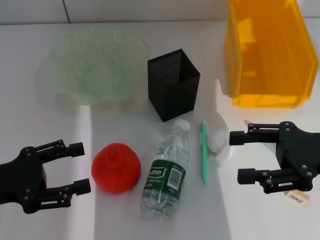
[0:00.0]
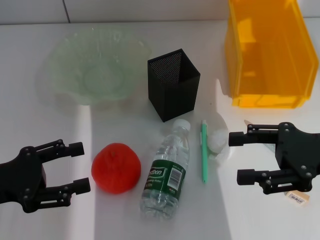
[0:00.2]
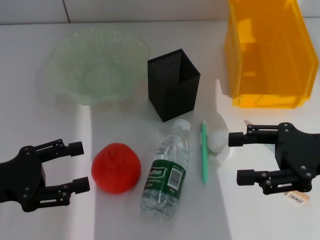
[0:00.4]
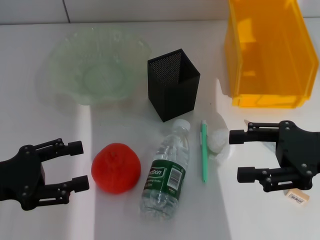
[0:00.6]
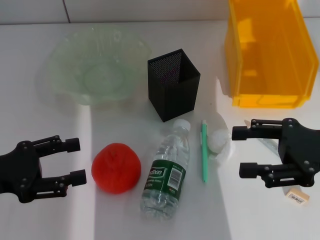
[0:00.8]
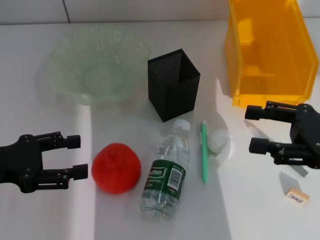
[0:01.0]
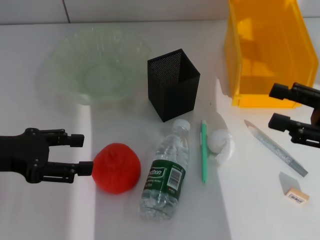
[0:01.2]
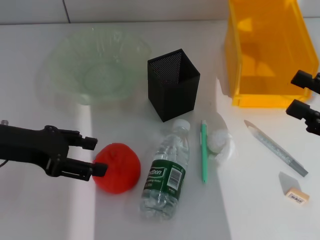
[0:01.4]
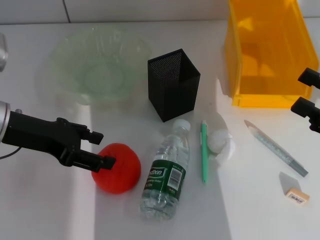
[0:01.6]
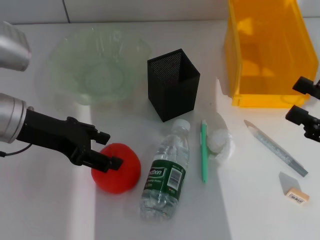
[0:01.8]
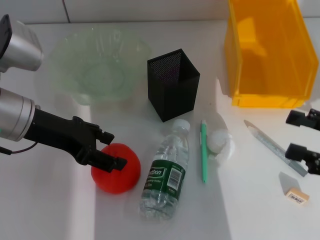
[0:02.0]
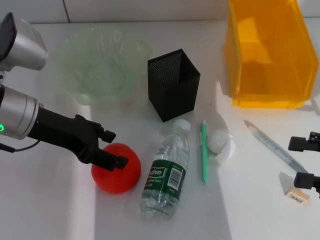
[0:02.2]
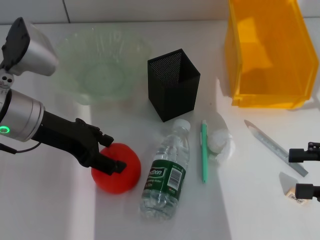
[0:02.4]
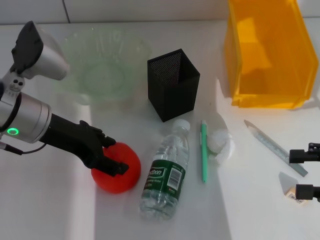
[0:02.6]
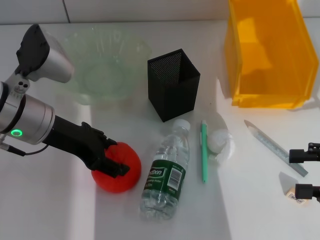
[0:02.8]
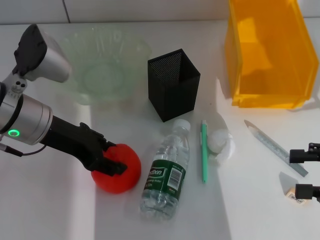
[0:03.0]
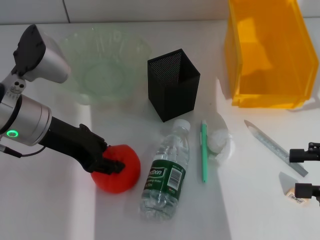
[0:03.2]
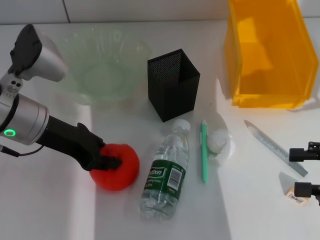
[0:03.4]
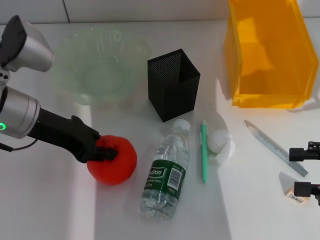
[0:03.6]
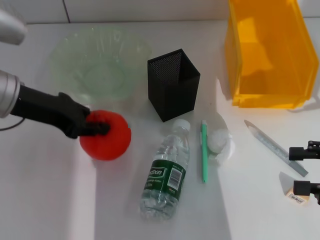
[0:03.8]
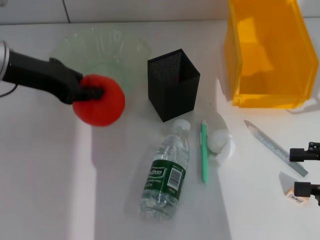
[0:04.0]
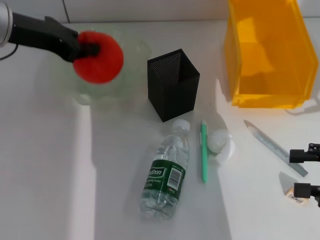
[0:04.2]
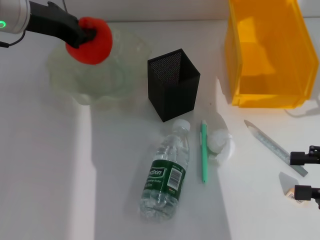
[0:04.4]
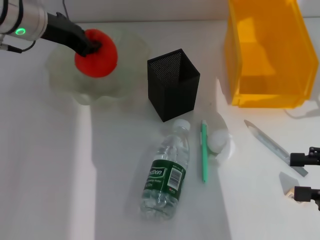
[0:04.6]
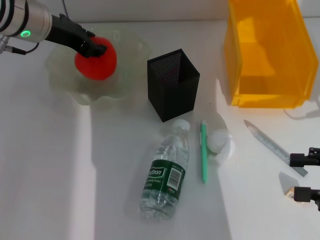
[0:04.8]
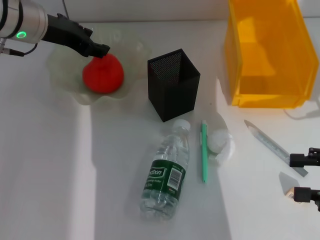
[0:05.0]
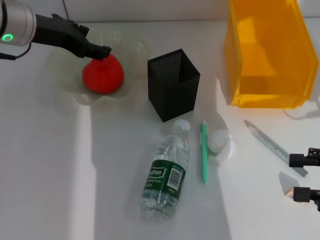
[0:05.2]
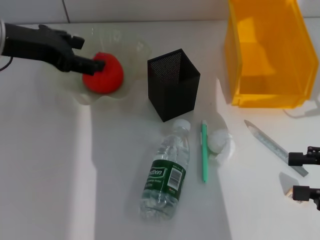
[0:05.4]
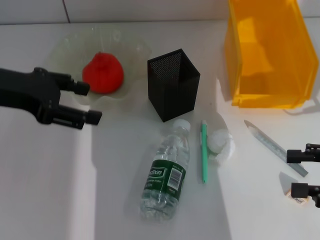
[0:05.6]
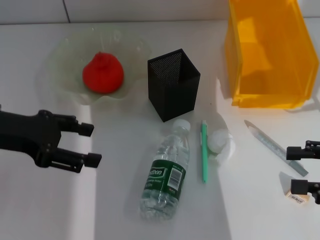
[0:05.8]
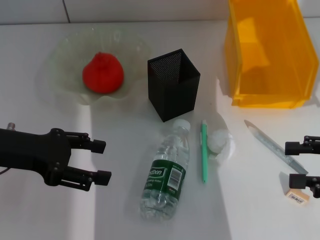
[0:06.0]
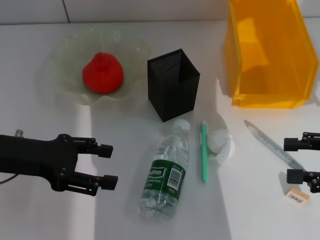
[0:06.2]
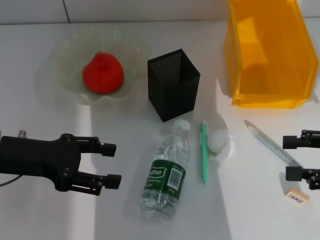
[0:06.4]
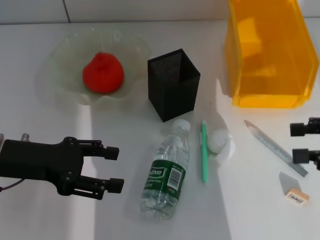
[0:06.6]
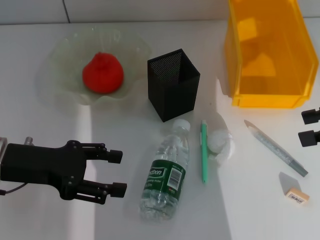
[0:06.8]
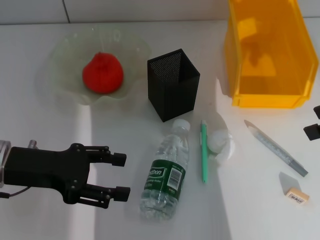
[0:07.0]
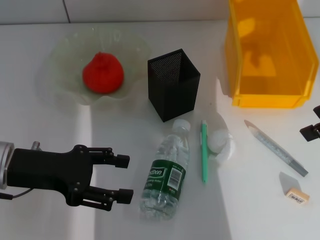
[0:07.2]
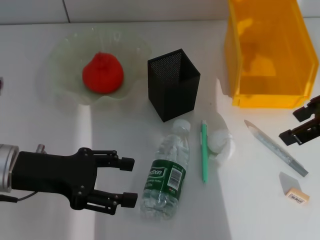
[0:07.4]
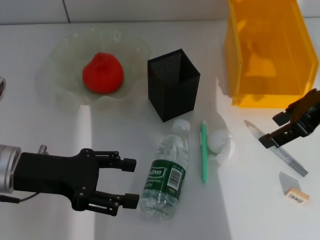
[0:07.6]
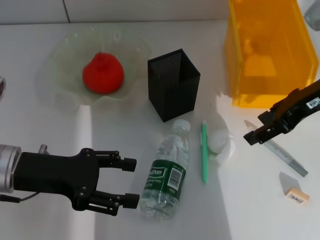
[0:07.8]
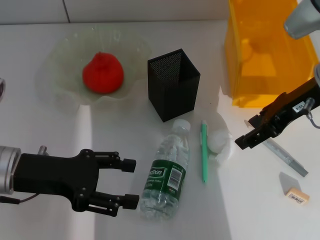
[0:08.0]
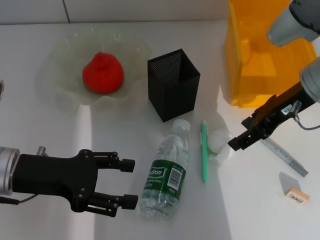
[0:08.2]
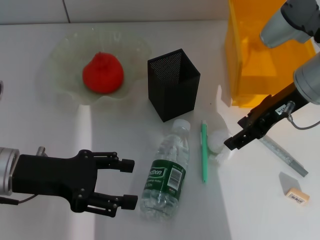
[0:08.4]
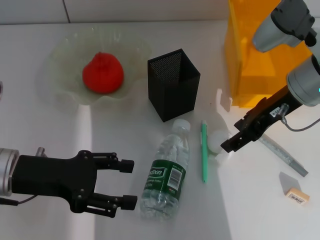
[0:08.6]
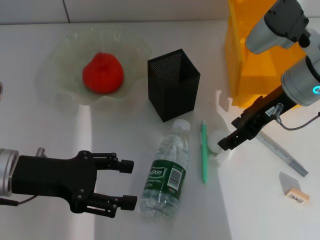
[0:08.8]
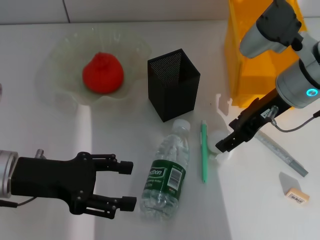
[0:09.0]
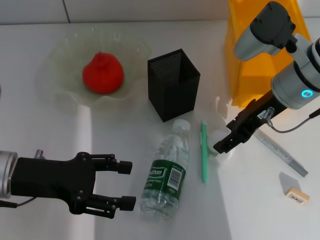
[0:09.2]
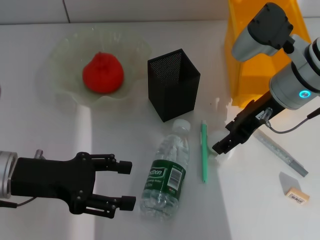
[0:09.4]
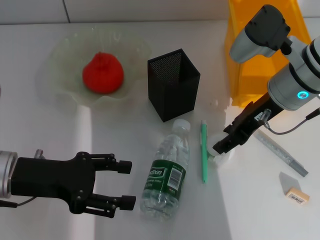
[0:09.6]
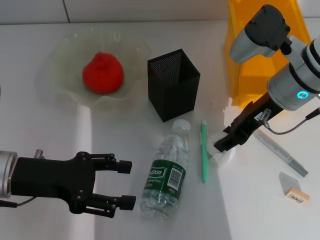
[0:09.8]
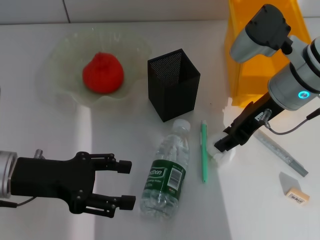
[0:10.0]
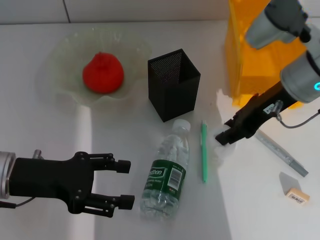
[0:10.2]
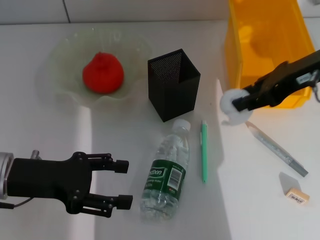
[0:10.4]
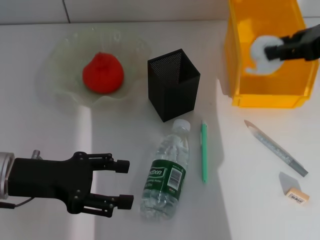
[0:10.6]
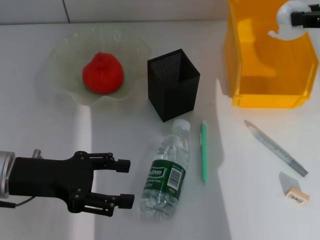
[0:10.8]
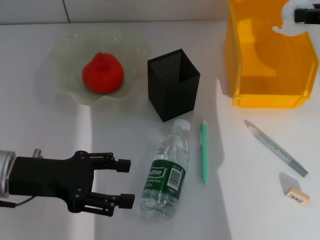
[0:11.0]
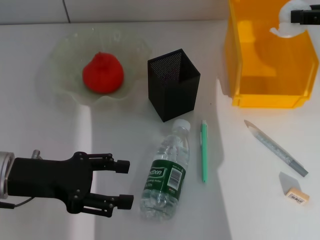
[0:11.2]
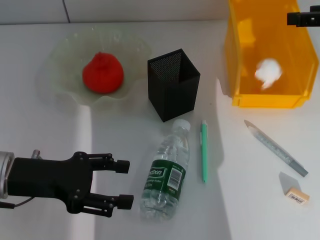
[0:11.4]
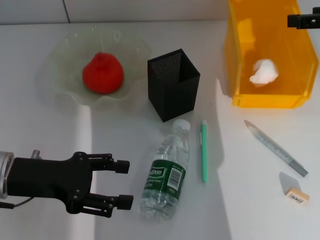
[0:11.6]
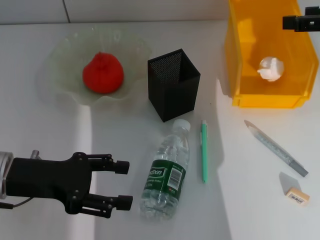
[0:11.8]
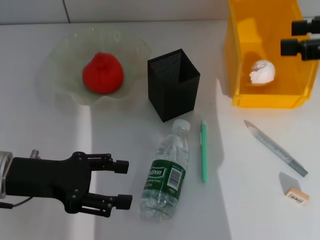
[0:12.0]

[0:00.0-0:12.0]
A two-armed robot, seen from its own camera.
Step, 0:00.0 to 0:03.2: Grab the orange with the left hand.
Step, 0:03.6 to 0:05.0: Place the orange into the fruit bowl with the left hand.
Step, 0:05.2 to 0:09.8: Grab the paper ball with the right hand.
Step, 0:10.2 to 0:11.6: Place the paper ball into the trash can with the right hand.
0:00.0 to 0:01.6: The right gripper moves to the right, about 5 cm; the left gripper shifts some 15 cm forward, upward and to the right.
0:01.6 to 0:03.0: The left gripper shifts by some 5 cm.
0:03.0 to 0:04.4: The left gripper heads forward and upward, covering about 10 cm, and closes.
0:04.4 to 0:06.0: The left gripper travels backward and downward by roughly 15 cm, and opens its fingers.
0:06.0 to 0:07.6: The right gripper travels to the left, forward and upward by about 15 cm.
0:07.6 to 0:09.0: The right gripper moves to the left and downward, about 10 cm.
0:09.0 to 0:10.4: The right gripper moves upward and to the right, roughly 10 cm, and closes its fingers.
0:10.4 to 0:12.0: The right gripper heads to the right, covering some 10 cm, and opens.

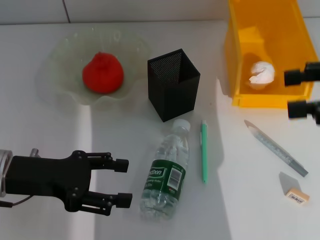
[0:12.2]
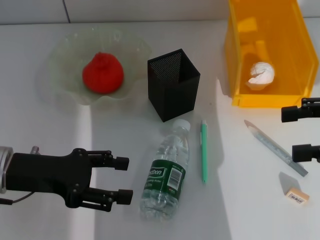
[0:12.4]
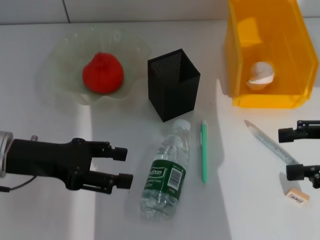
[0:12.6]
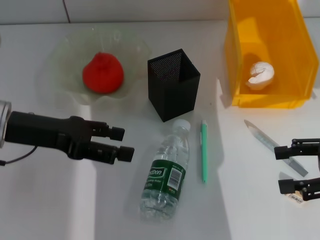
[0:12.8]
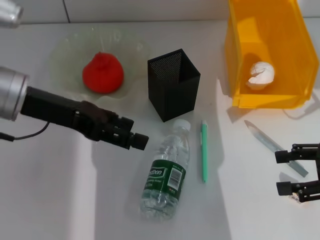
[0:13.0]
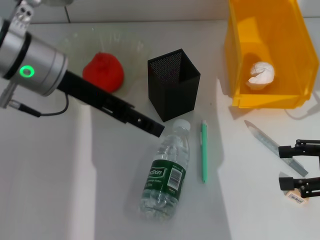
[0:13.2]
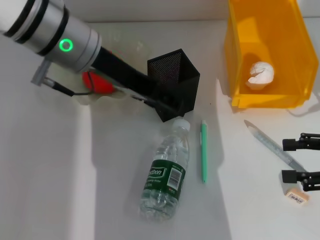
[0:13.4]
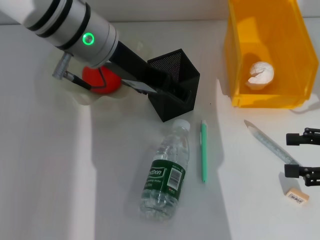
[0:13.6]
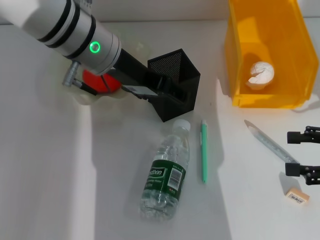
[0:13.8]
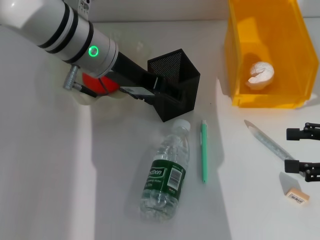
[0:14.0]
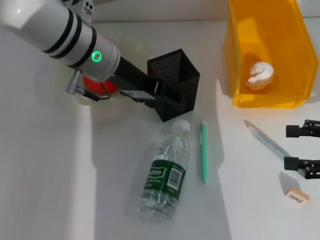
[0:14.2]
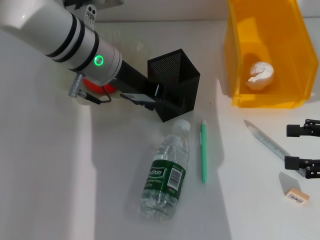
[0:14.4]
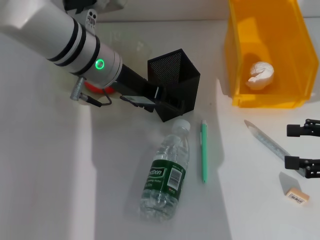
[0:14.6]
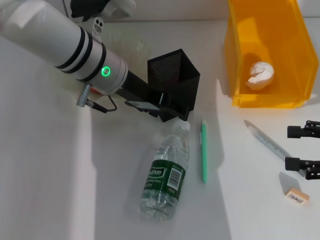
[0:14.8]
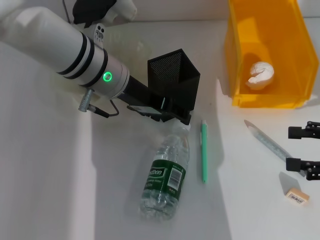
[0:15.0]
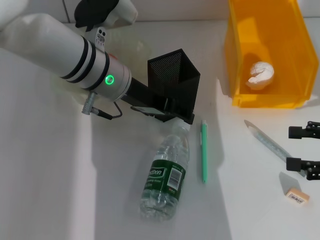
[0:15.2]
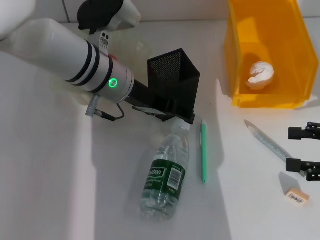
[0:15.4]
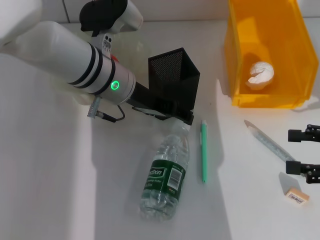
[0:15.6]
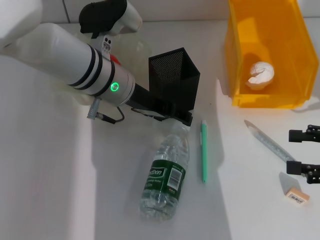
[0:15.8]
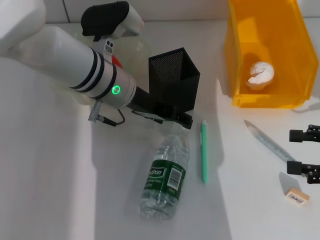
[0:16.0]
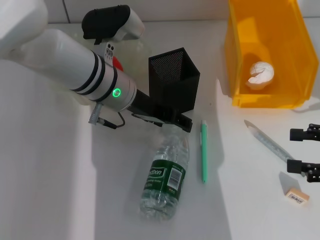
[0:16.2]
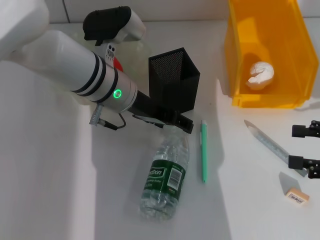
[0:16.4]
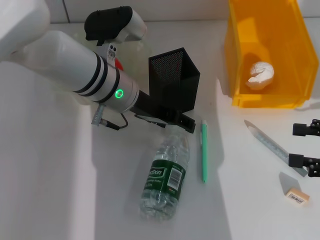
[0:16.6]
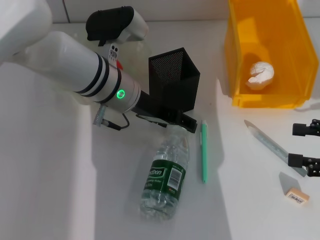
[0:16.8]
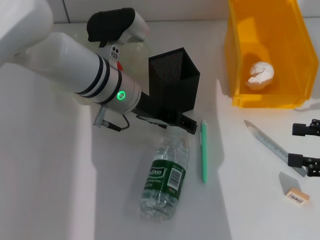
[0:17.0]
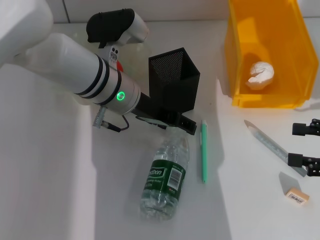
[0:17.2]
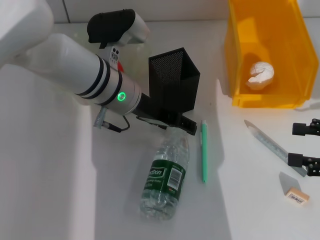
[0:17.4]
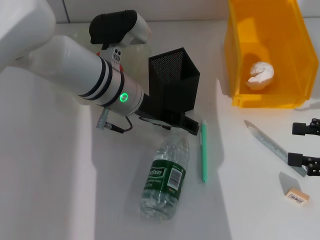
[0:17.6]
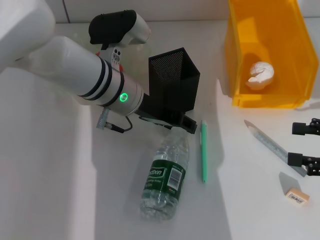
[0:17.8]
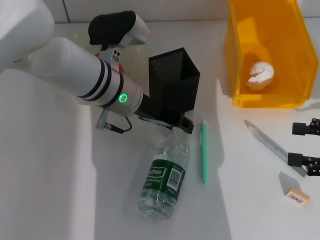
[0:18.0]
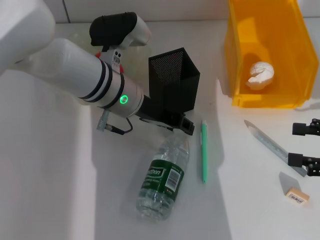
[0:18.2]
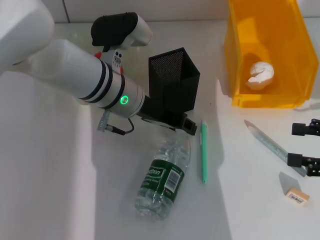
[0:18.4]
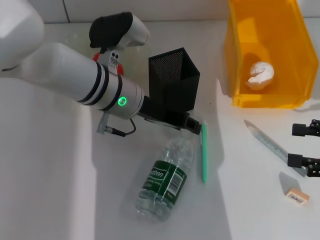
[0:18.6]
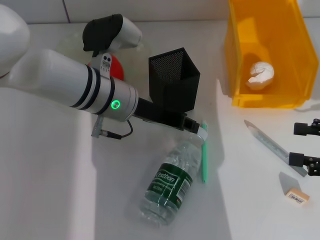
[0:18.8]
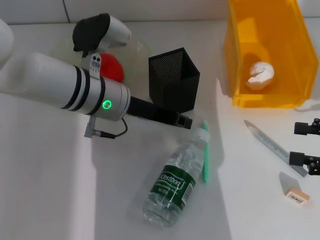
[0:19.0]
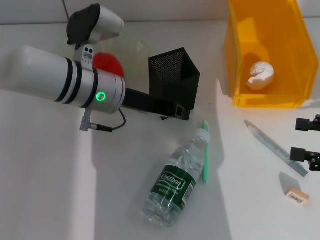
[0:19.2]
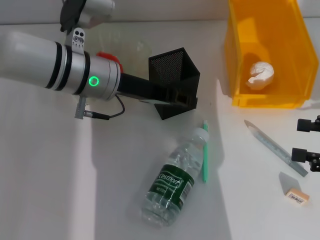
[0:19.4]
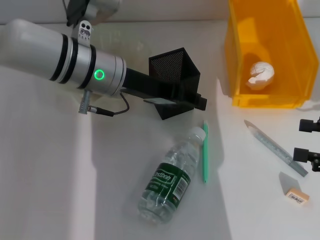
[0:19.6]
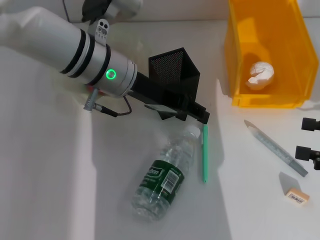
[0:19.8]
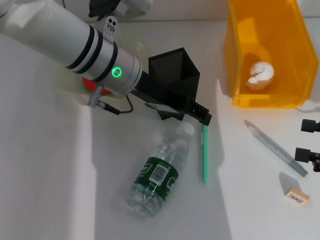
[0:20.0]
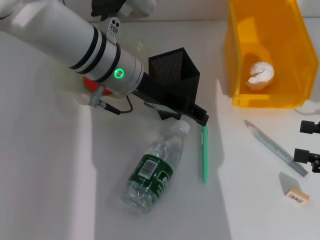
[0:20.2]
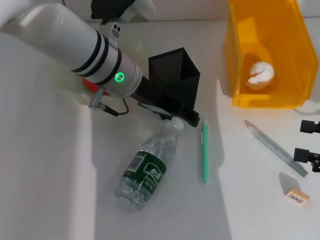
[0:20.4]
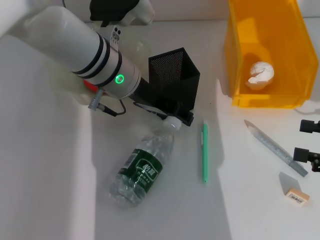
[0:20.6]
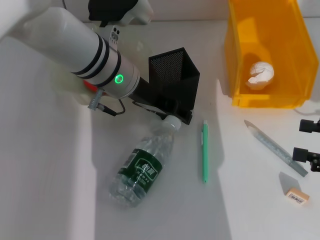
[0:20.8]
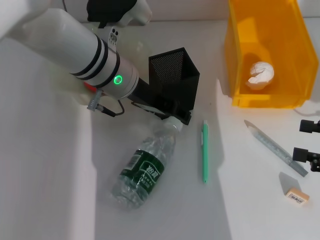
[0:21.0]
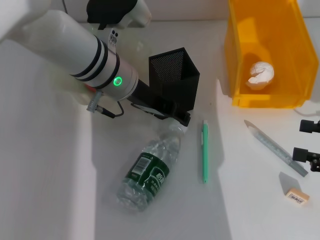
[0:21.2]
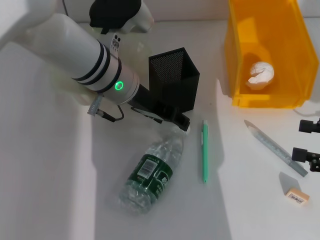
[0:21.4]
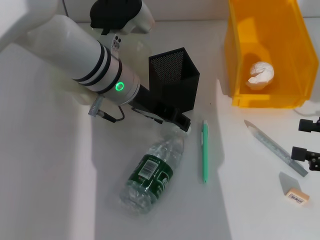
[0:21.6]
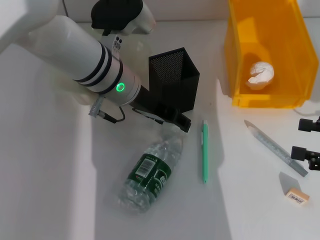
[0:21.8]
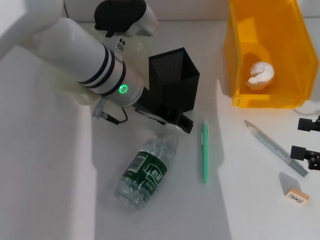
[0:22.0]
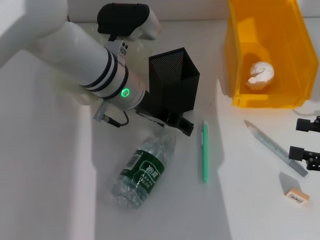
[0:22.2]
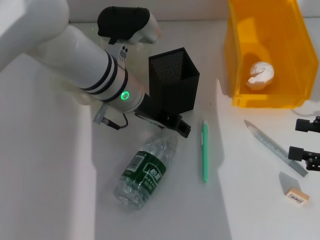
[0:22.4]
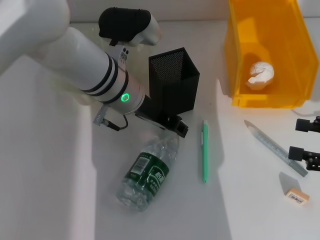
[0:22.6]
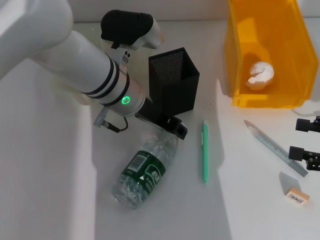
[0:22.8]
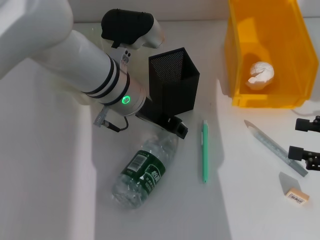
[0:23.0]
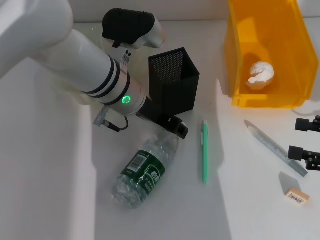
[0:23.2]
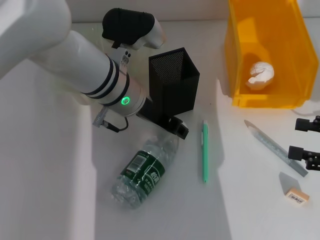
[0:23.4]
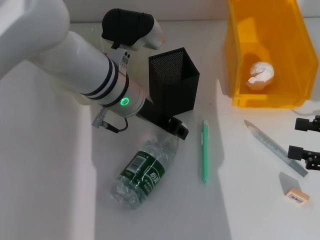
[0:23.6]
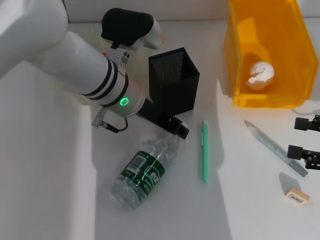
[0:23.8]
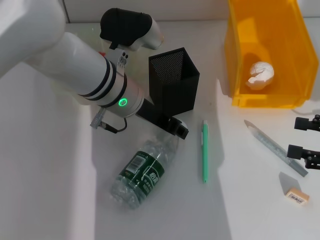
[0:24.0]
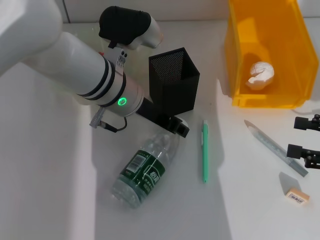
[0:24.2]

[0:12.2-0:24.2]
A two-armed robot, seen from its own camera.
Step, 0:12.2 to 0:23.8: Grab the water bottle with the left hand.
0:12.2 to 0:13.8: The right gripper is displaced downward by approximately 10 cm; the left gripper moves to the right, forward and upward, about 20 cm.
0:13.8 to 0:15.2: The left gripper is displaced downward by roughly 5 cm.
0:15.2 to 0:16.6: The grippers make only small movements.
0:16.6 to 0:18.2: The left gripper closes up.
0:18.2 to 0:19.8: The grippers stay close to where they were, moving slightly.
0:19.8 to 0:21.2: The left gripper opens its fingers.
0:21.2 to 0:24.2: The grippers move only a little.
